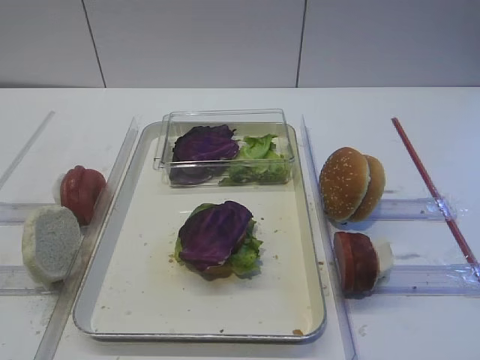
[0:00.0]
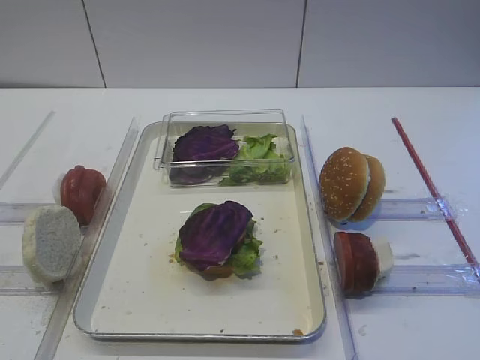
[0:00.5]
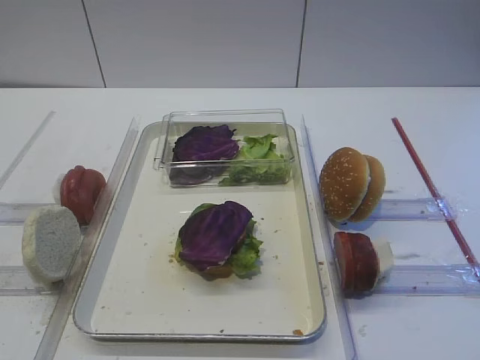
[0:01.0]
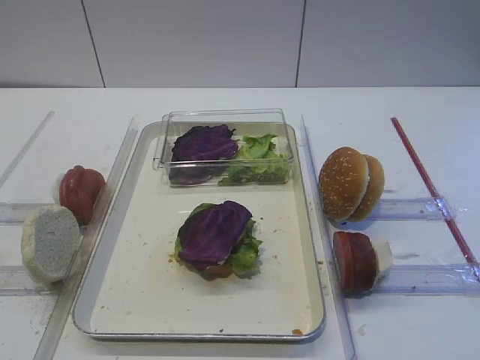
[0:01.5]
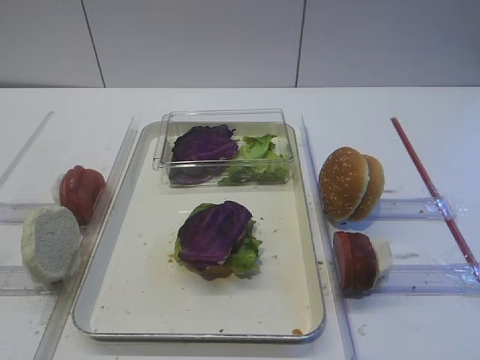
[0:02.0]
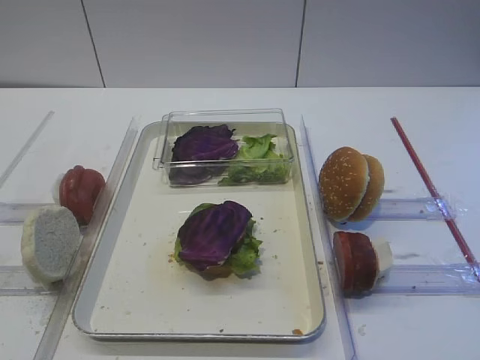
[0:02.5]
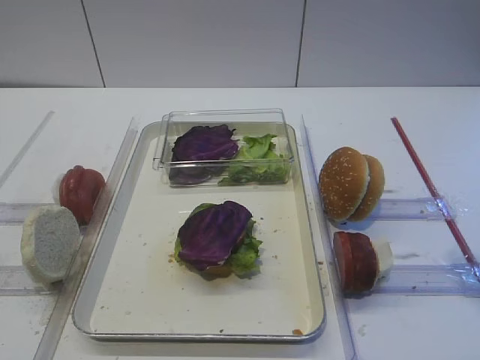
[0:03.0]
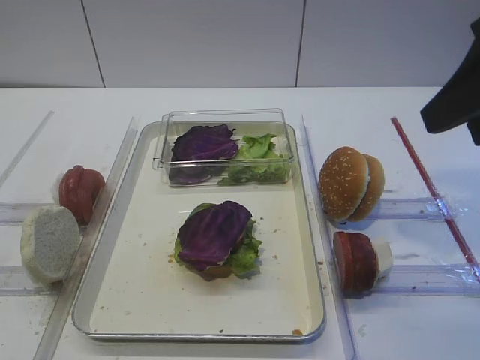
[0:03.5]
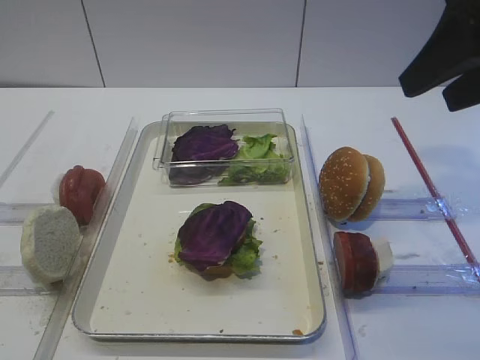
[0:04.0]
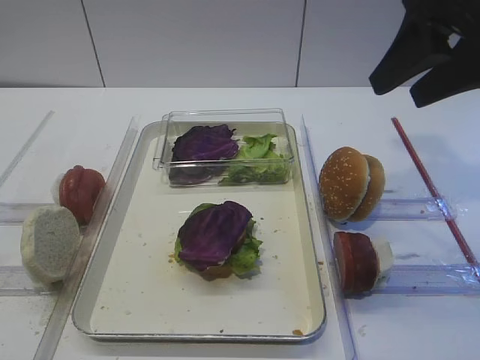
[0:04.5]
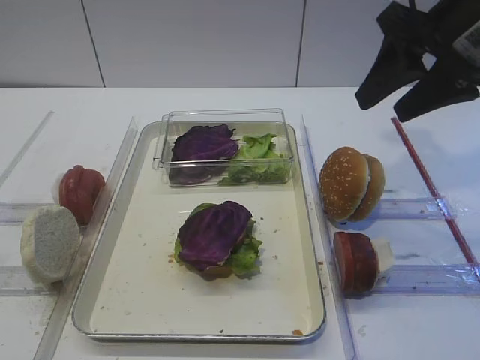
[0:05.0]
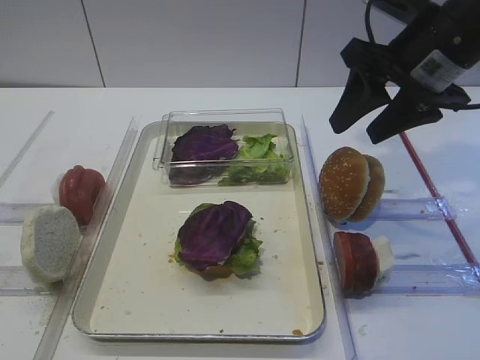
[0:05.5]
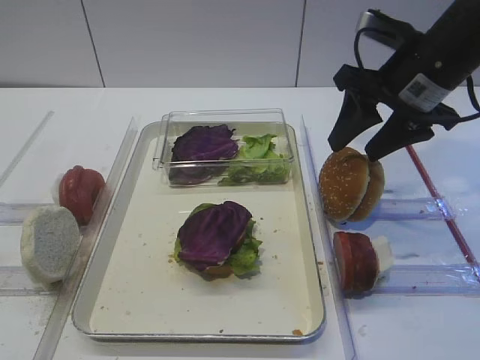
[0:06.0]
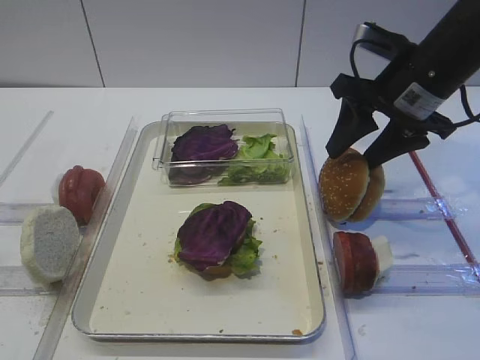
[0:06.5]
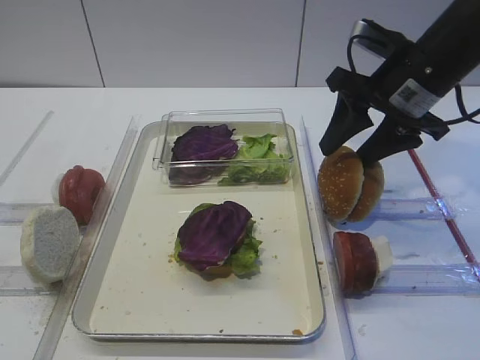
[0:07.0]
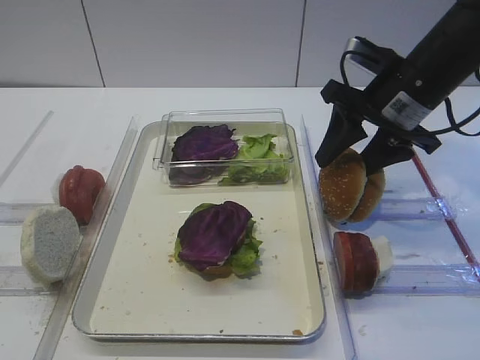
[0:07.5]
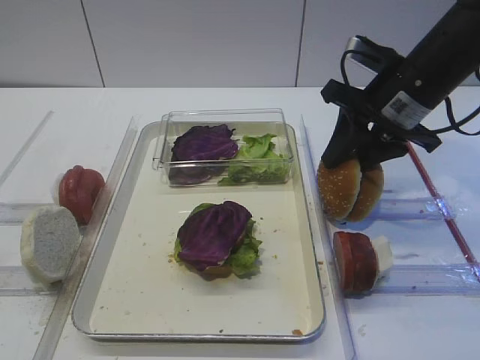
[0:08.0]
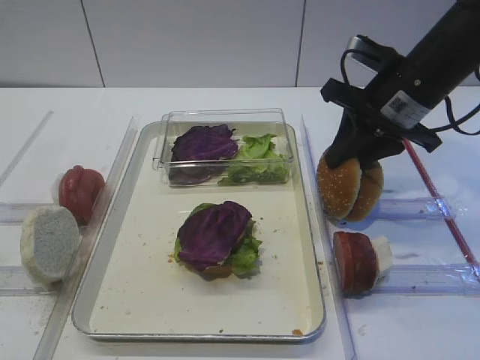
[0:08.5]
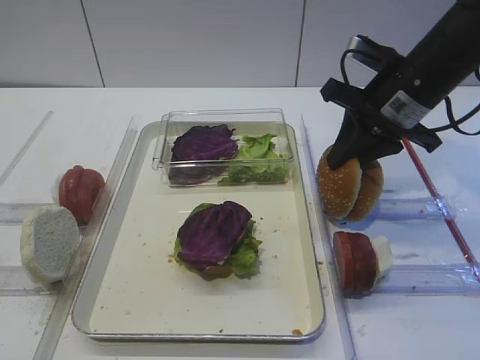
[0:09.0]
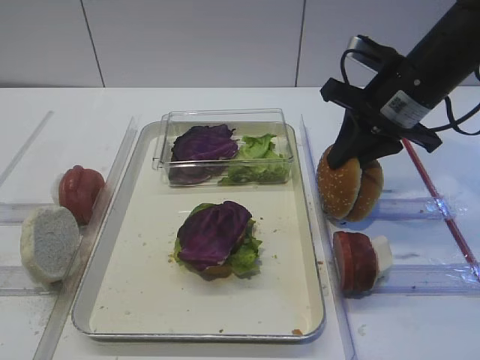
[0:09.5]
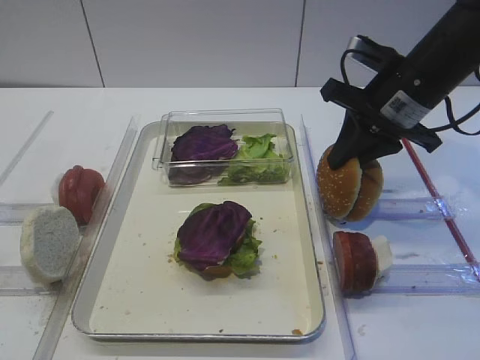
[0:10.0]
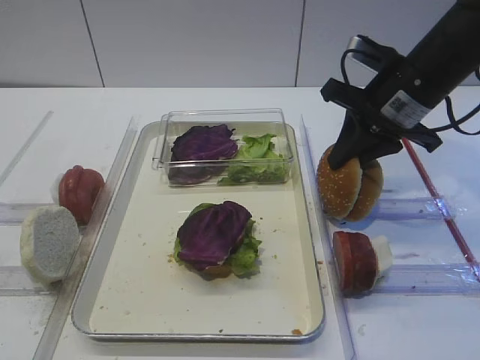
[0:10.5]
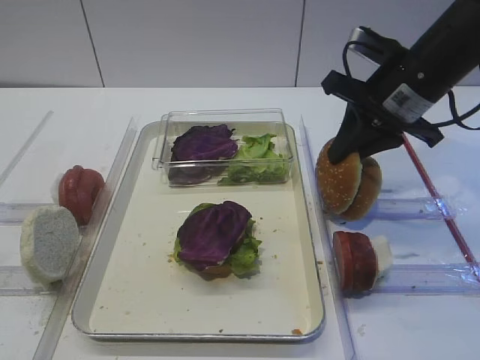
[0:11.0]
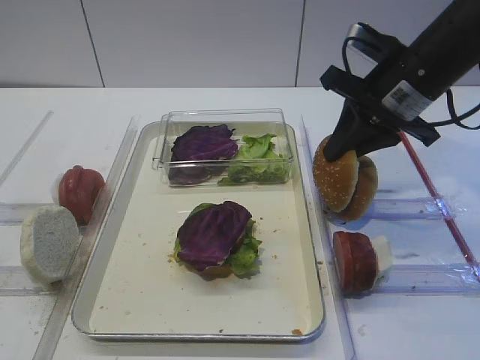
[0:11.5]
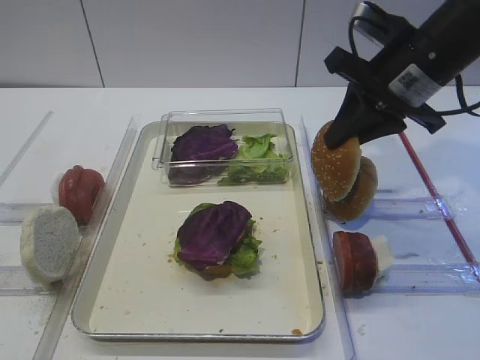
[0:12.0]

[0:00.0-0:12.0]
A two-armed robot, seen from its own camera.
0:02.0 to 0:04.0: The right gripper moves forward, about 25 cm.
0:04.0 to 0:06.0: The right gripper travels forward and downward by about 15 cm.
0:06.0 to 0:08.0: The grippers stay close to where they were, moving slightly.
0:08.0 to 0:10.0: Neither gripper changes place.
0:10.0 to 0:12.0: The grippers make only small movements.

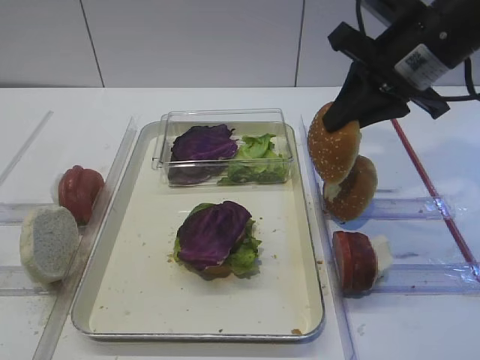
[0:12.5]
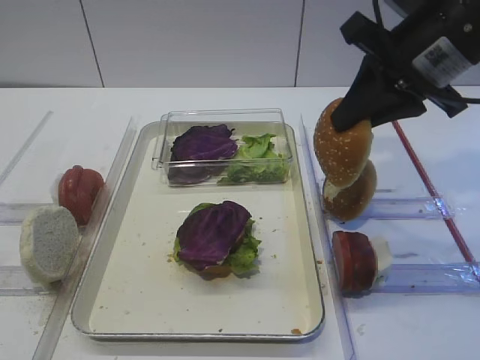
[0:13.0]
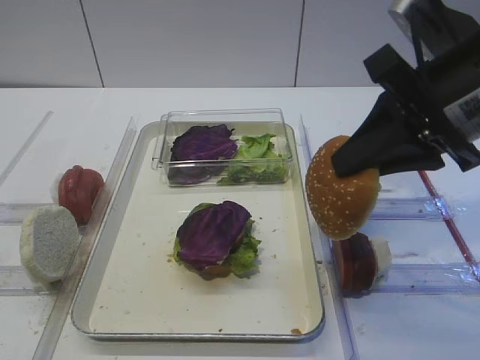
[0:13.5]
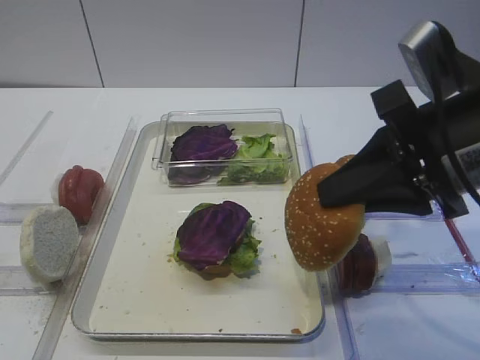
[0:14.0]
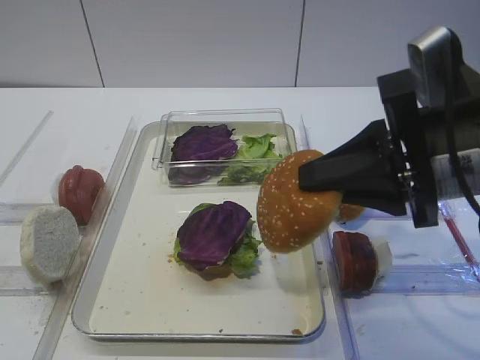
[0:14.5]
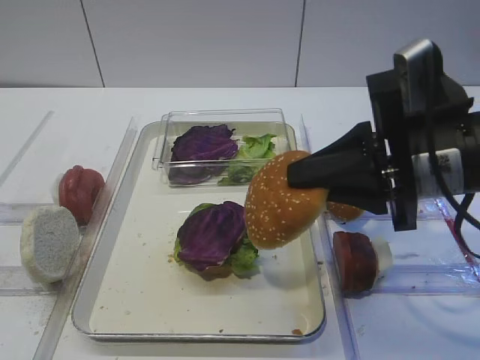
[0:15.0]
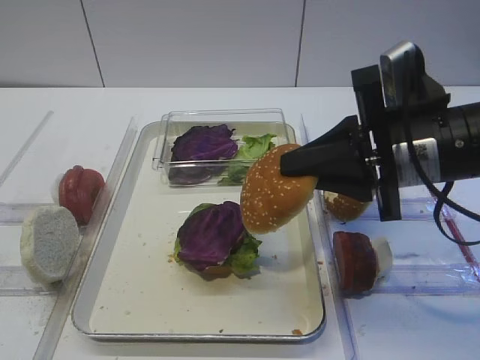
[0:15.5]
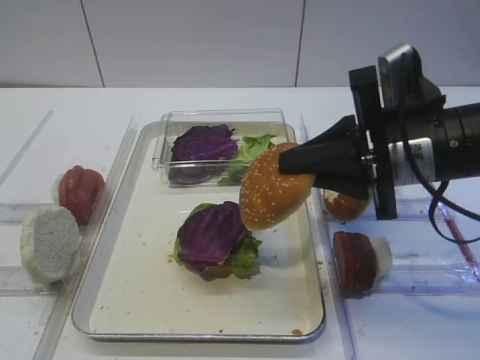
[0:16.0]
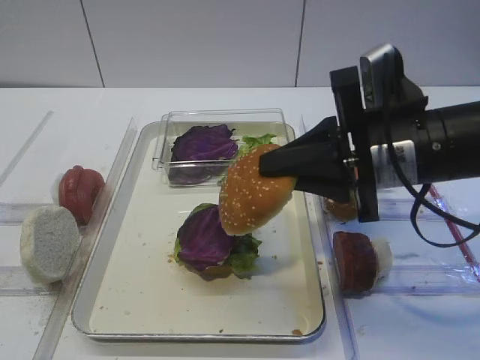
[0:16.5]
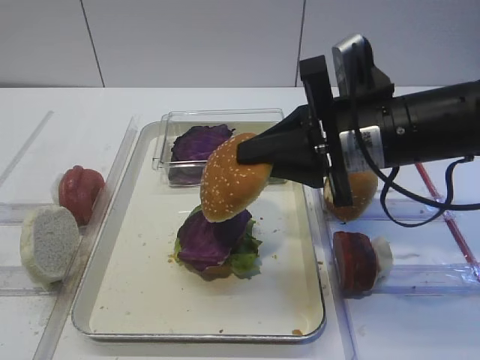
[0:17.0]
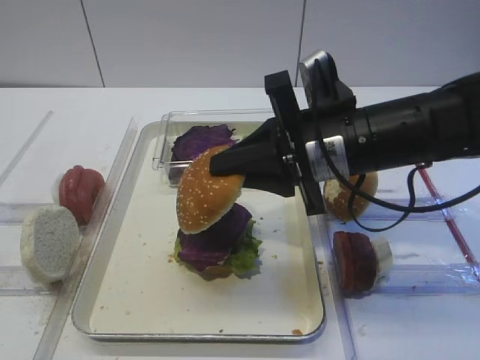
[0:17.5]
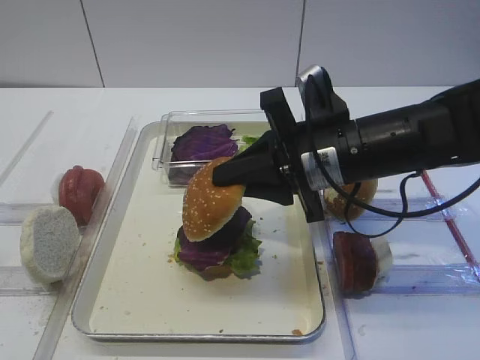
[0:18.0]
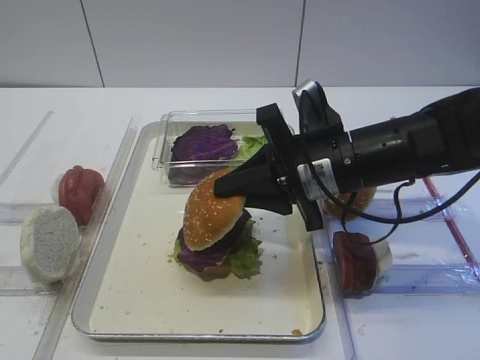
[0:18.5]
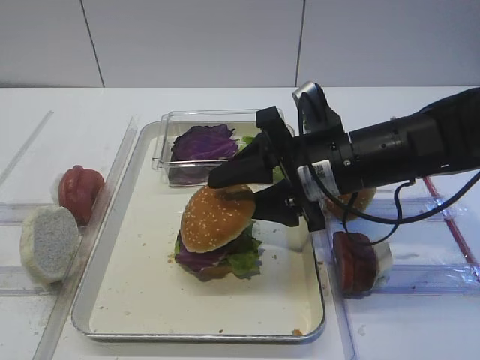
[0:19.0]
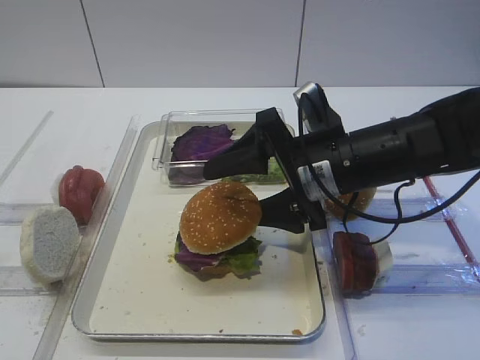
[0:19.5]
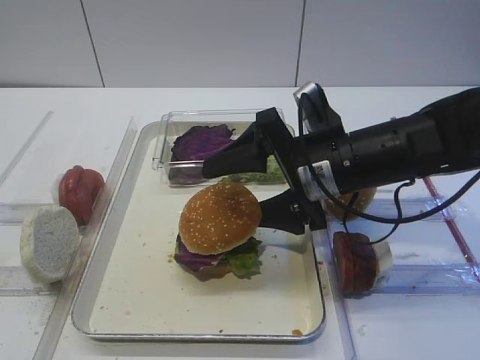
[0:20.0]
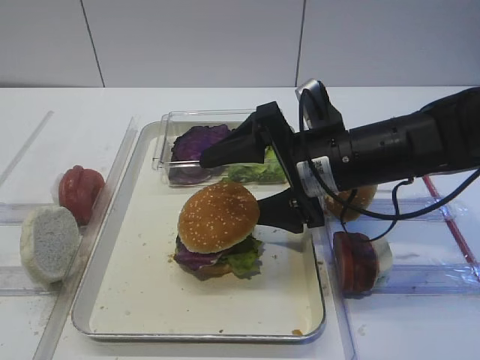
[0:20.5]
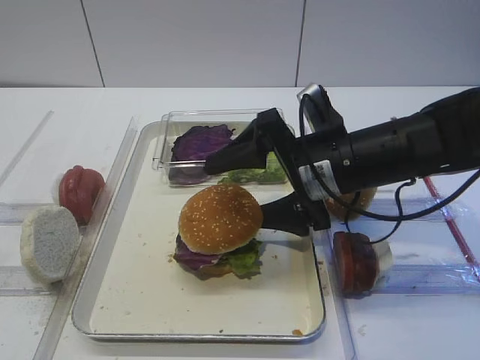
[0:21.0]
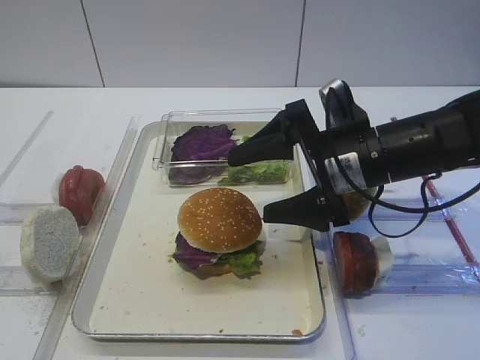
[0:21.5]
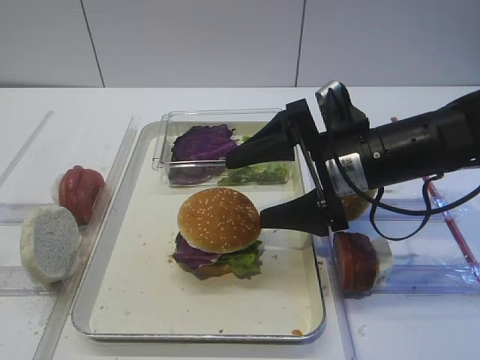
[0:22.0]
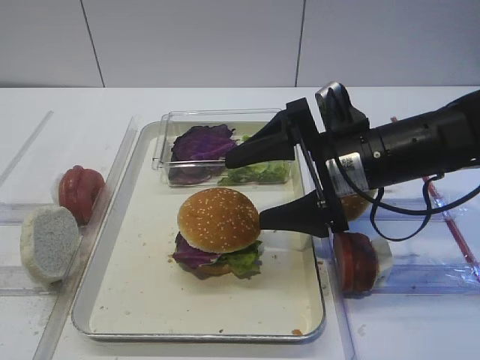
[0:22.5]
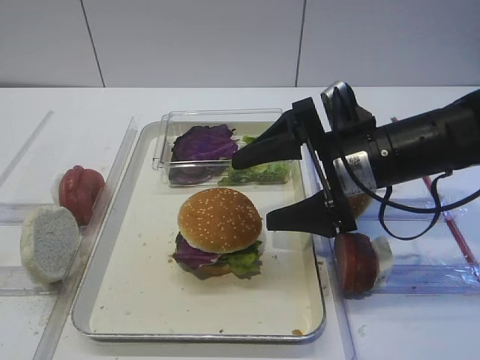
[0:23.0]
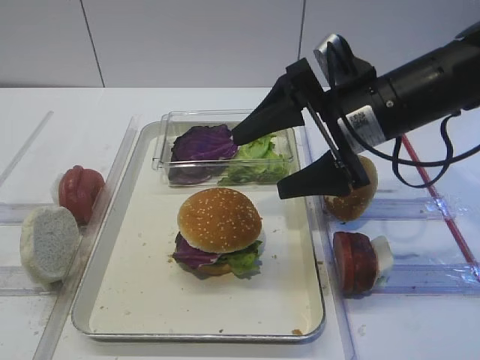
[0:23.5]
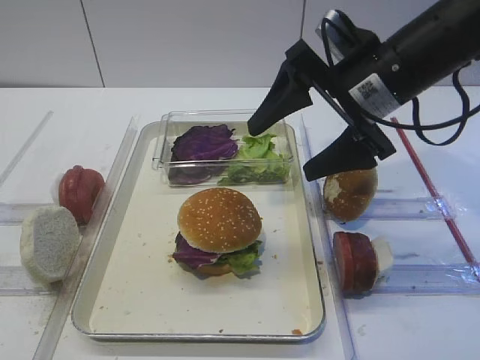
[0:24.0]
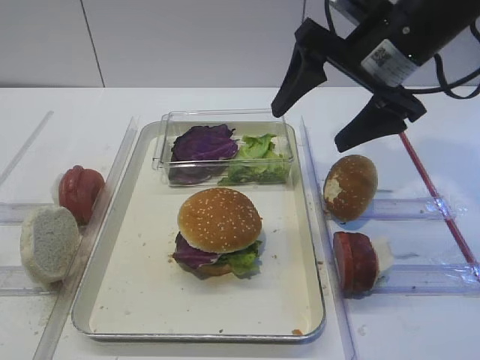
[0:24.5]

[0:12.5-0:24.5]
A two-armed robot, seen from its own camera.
Step, 0:13.0 to 0:21.5: Place the hamburger lid on the purple cabbage with the right gripper.
0:12.5 to 0:14.5: The right gripper travels backward by some 15 cm.
0:14.5 to 0:16.5: The grippers make only small movements.
0:16.5 to 0:18.5: The right gripper ends up approximately 10 cm from where it was.
0:18.5 to 0:20.5: The right gripper opens up.
0:20.5 to 0:22.5: The grippers make only small movements.
0:22.5 to 0:24.5: The right gripper shifts about 10 cm upward.

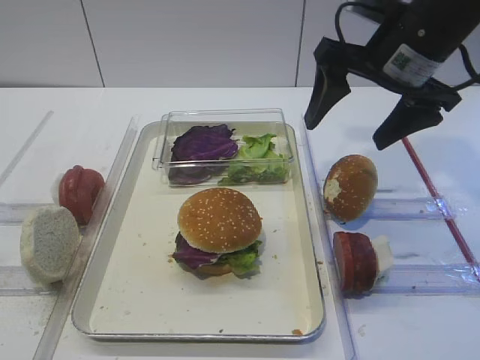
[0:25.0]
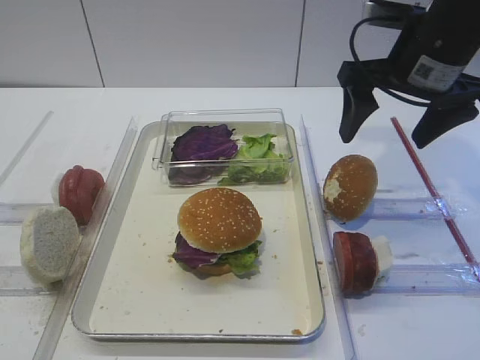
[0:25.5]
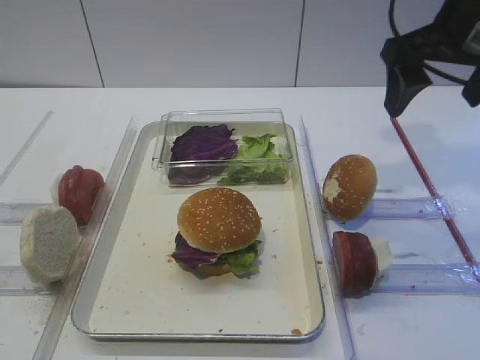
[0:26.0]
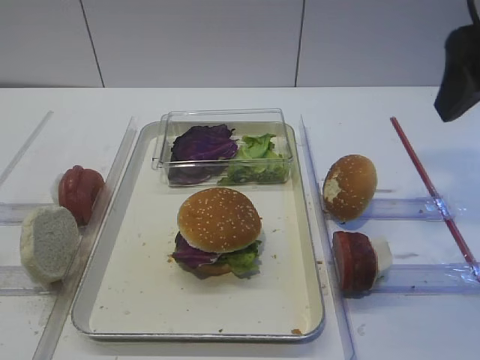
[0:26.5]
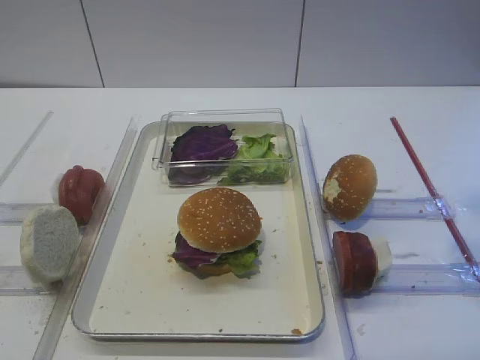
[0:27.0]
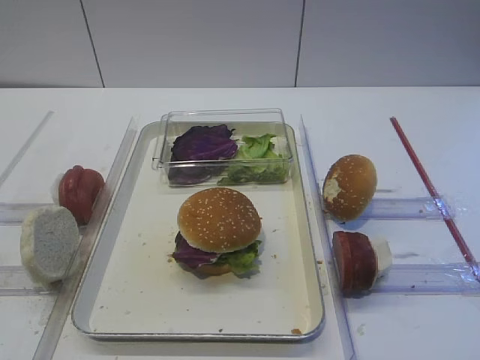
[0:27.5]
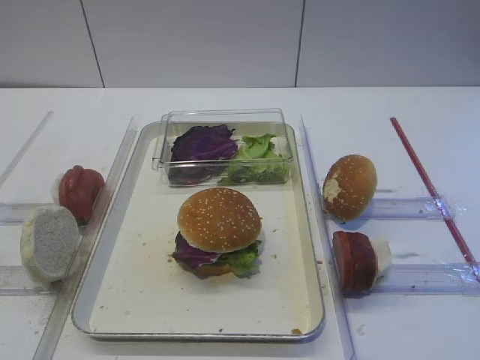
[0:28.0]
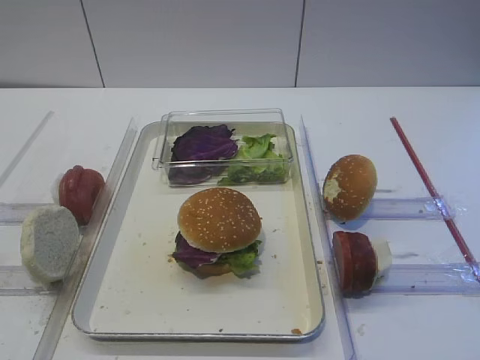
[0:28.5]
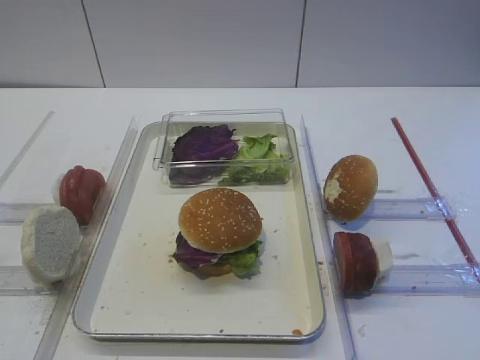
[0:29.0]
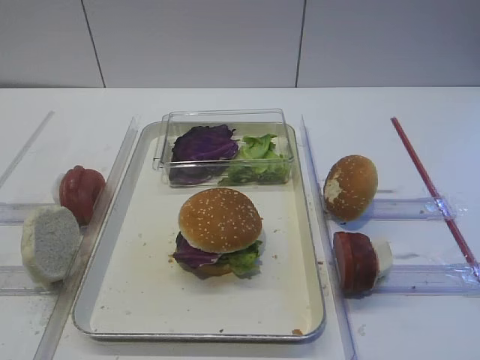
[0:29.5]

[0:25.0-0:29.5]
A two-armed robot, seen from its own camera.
0:25.0 to 0:27.0: The right gripper shifts approximately 20 cm backward and upward.
